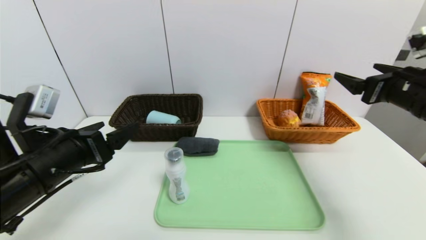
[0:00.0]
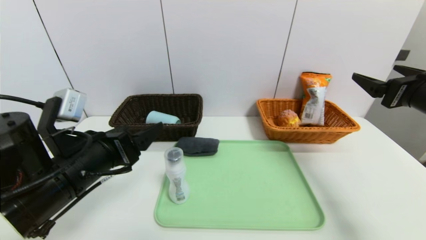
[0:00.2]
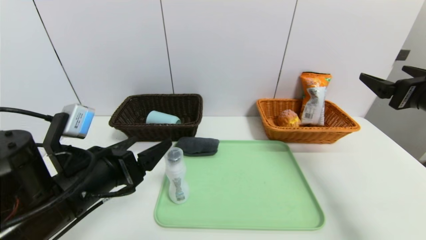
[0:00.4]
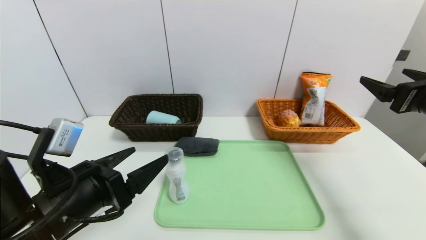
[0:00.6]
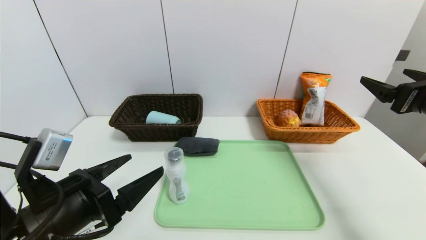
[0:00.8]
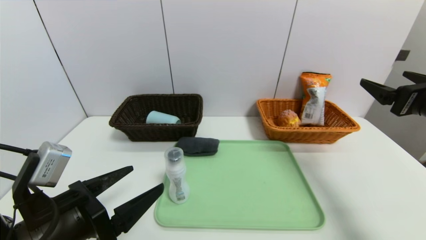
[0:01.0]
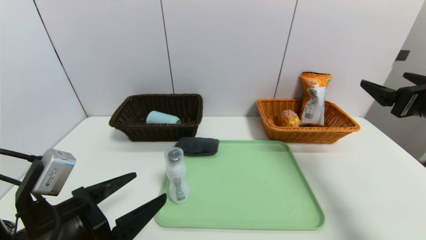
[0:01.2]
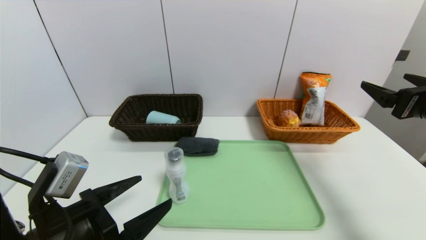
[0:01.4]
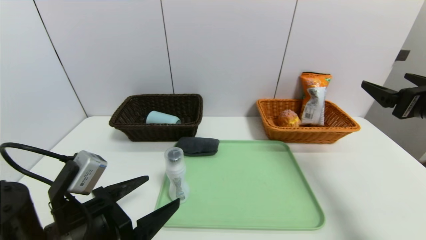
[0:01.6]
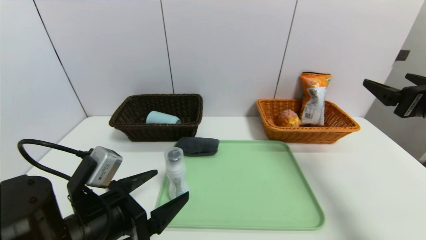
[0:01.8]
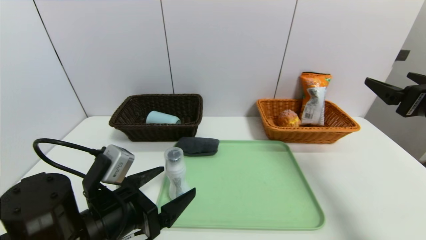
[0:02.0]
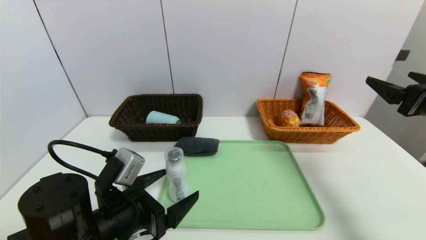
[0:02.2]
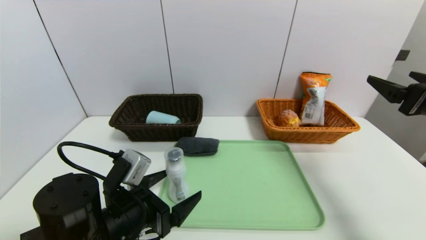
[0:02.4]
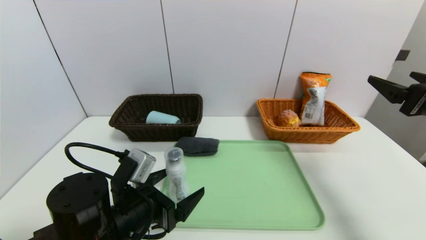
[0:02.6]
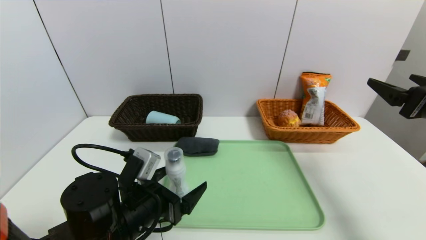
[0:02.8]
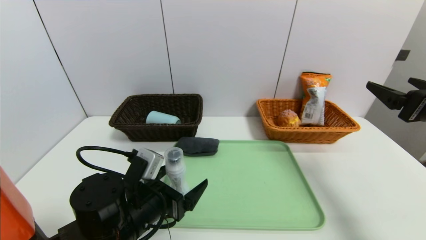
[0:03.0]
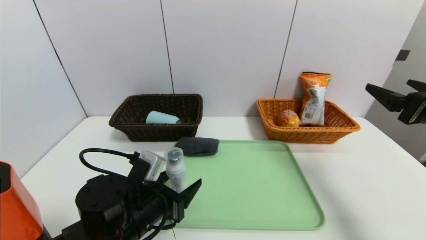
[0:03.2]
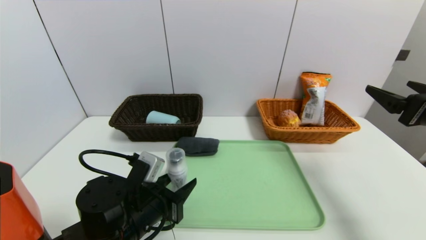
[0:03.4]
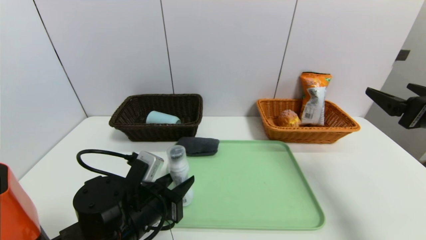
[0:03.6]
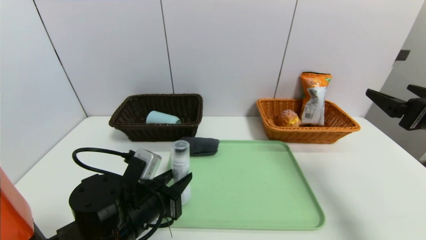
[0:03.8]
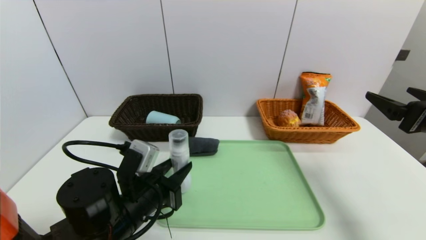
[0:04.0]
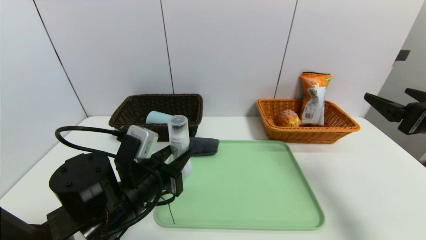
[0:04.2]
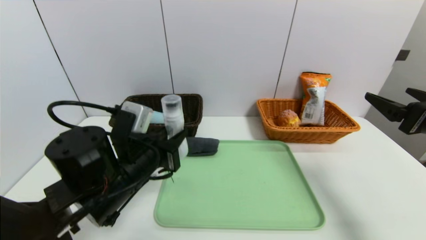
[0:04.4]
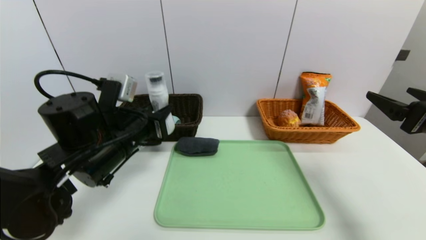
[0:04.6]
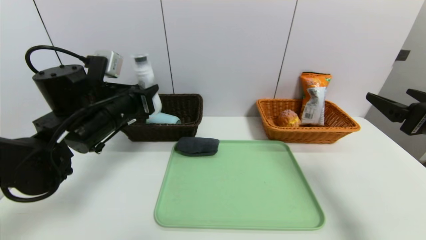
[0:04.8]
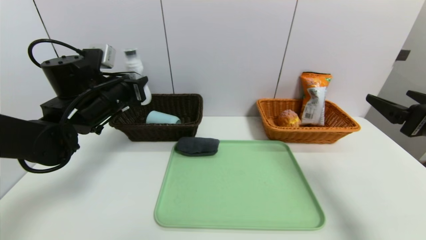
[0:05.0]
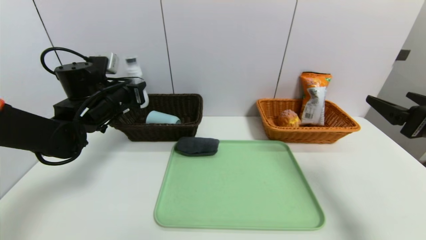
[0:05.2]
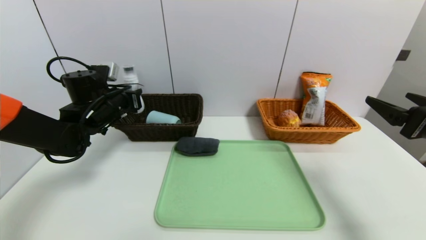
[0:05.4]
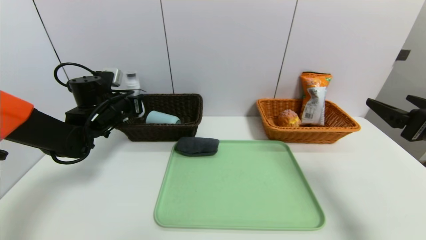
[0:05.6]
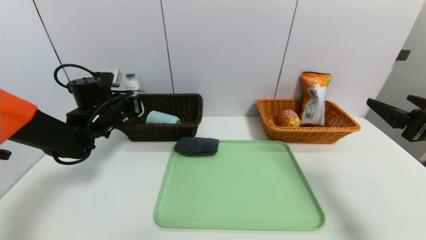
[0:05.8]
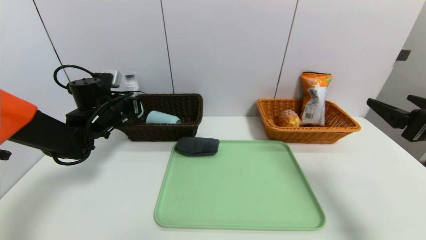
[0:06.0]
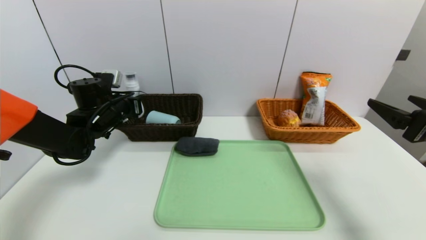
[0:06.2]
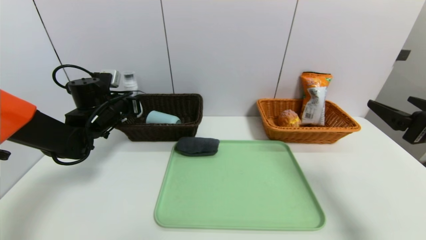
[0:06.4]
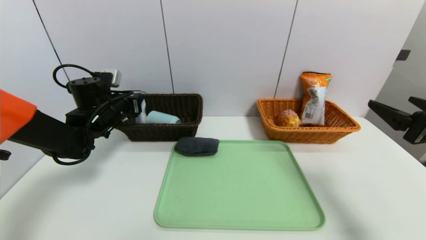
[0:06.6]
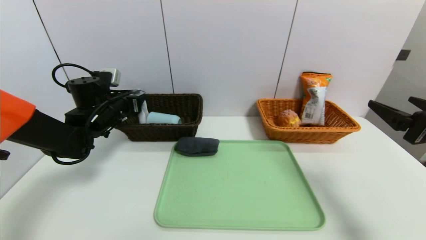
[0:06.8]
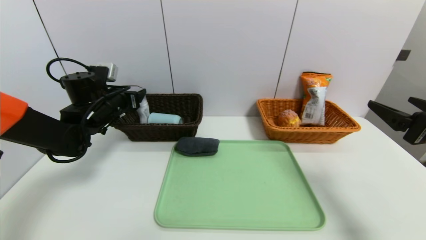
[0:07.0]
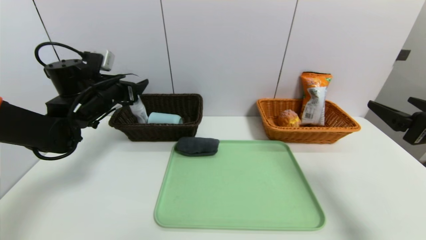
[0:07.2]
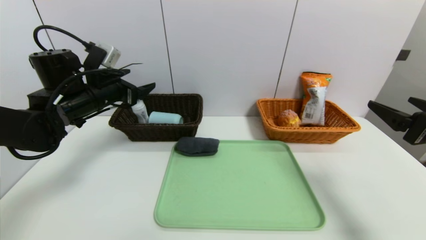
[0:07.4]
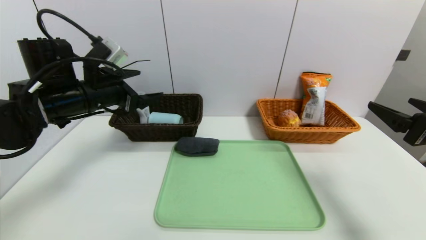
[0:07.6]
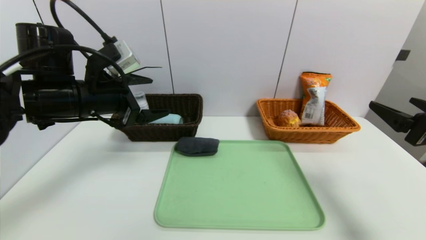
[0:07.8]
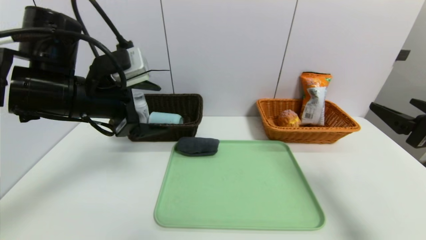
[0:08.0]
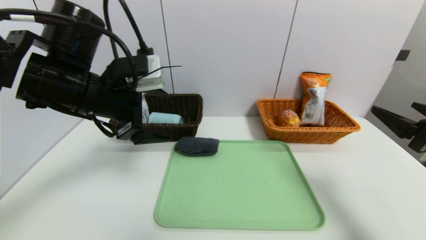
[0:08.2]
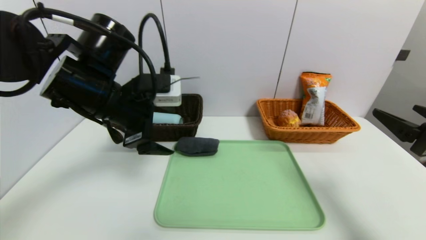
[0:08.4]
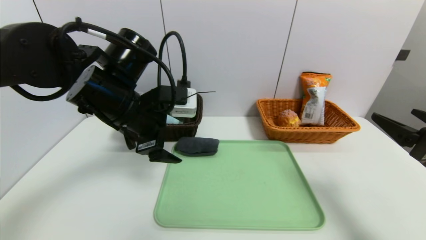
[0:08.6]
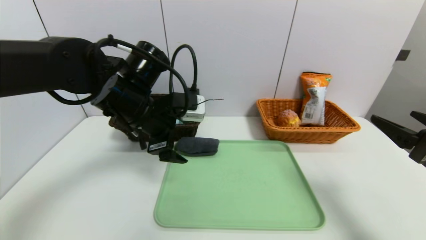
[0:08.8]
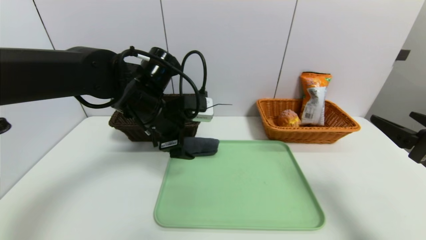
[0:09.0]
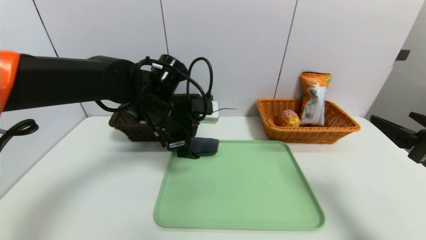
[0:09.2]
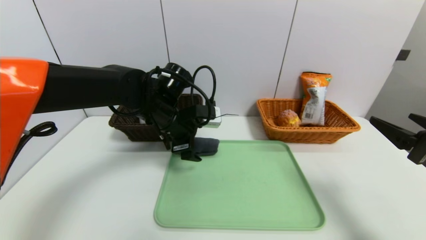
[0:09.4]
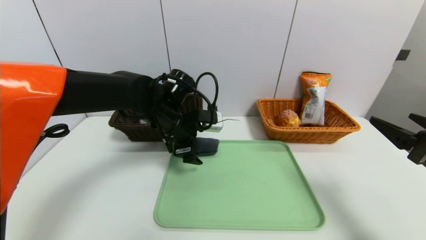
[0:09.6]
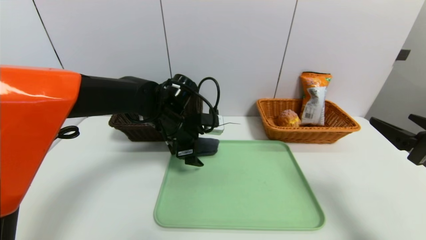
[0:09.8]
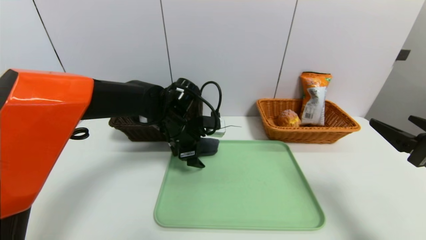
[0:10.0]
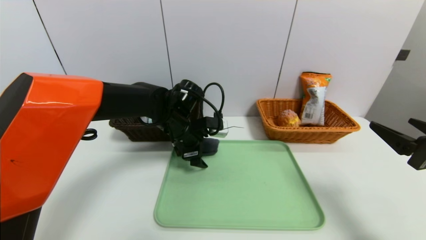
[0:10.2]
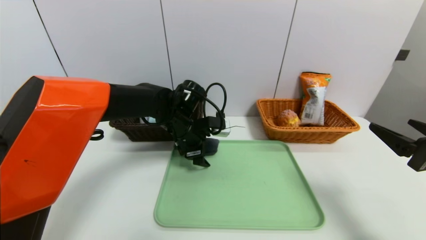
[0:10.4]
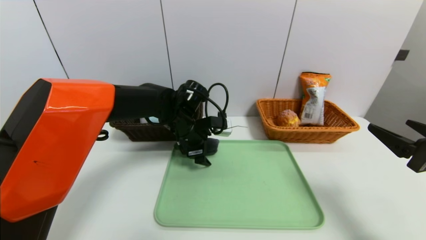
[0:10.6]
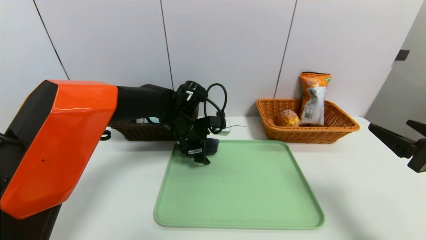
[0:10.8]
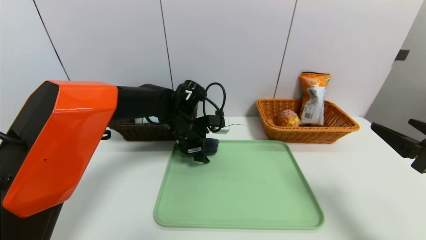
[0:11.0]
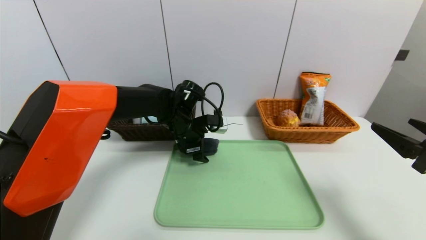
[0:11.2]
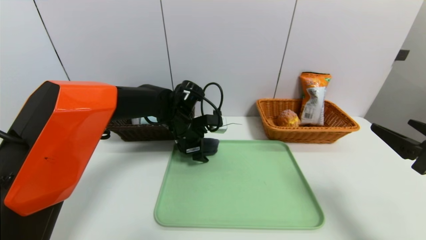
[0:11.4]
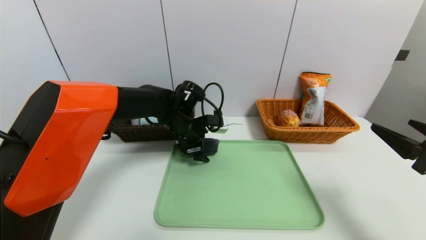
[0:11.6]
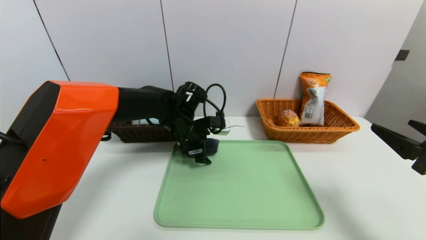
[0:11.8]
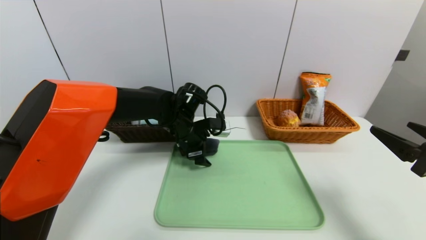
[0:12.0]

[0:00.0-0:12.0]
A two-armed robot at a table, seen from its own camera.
Task of the whole recording: place the food in the right basket with the right gripper, and place the non food items in the left basket with the left gripper.
Step, 0:00.0 to 0:07.2: Grasp the washing liquid and put it in the left basket.
0:00.0 to 0:01.6: The left gripper shifts some 10 cm downward and backward.
0:01.6 to 0:03.0: The left gripper heads forward, to the right and downward, covering approximately 10 cm.
0:03.0 to 0:04.4: The left gripper goes approximately 5 cm upward, and closes its fingers.
0:04.4 to 0:06.0: The left gripper heads forward and to the left, covering about 20 cm.
0:06.0 to 0:07.6: The left gripper goes about 10 cm upward and backward, and opens its fingers.
0:07.6 to 0:09.0: The left gripper moves to the right, roughly 10 cm.
0:09.0 to 0:10.4: The left gripper heads downward and forward, covering about 10 cm.
0:10.4 to 0:12.0: The grippers stay close to where they were, moving slightly.

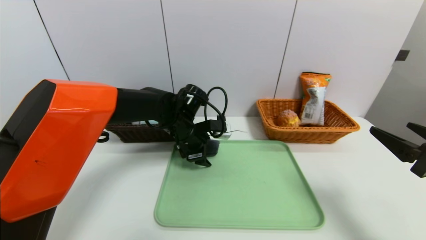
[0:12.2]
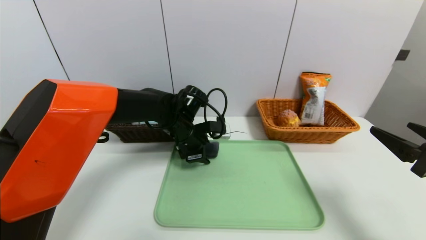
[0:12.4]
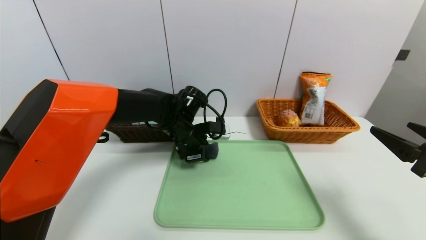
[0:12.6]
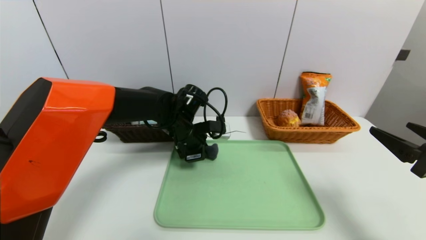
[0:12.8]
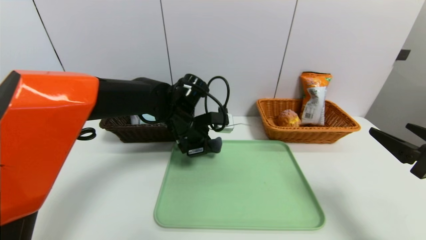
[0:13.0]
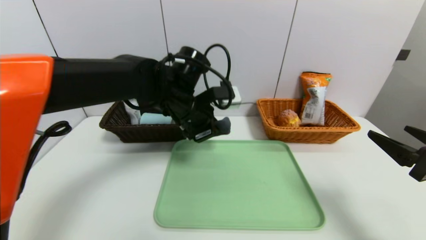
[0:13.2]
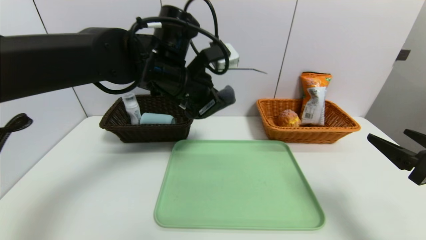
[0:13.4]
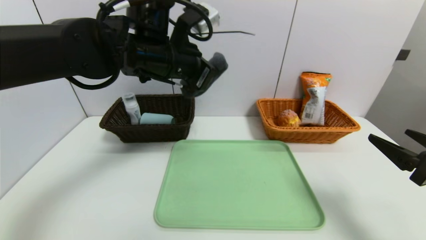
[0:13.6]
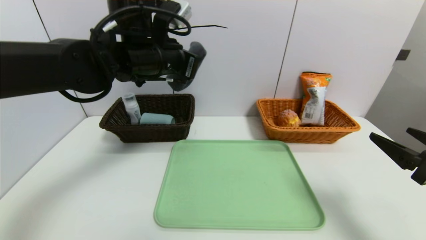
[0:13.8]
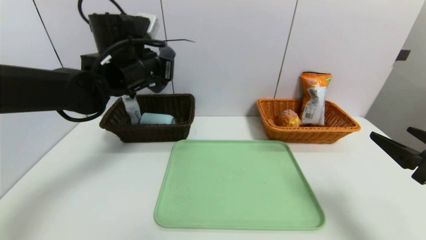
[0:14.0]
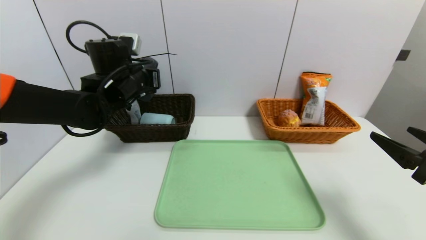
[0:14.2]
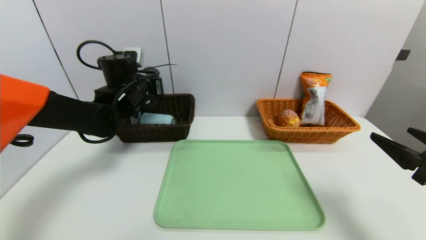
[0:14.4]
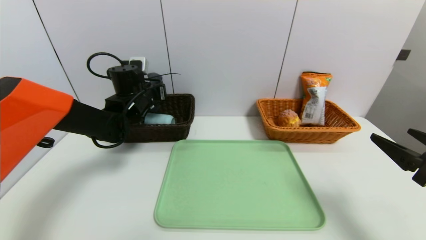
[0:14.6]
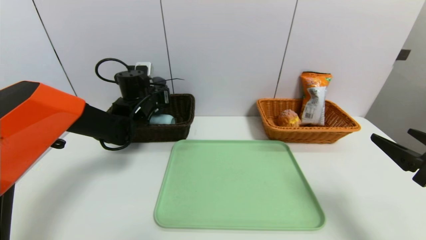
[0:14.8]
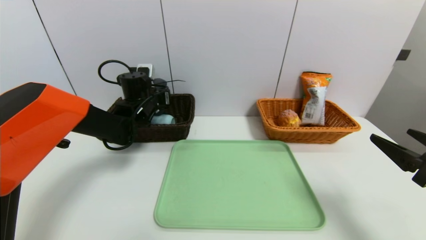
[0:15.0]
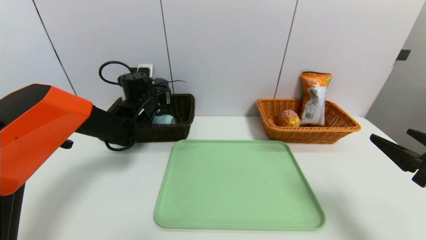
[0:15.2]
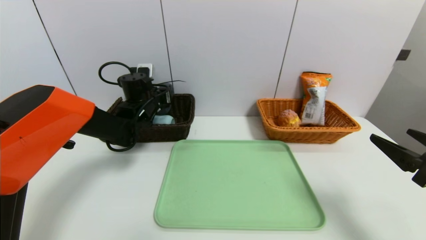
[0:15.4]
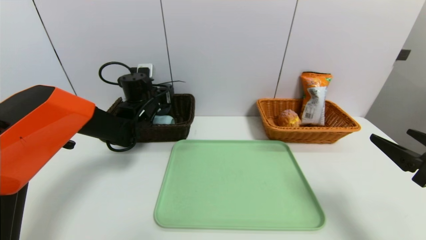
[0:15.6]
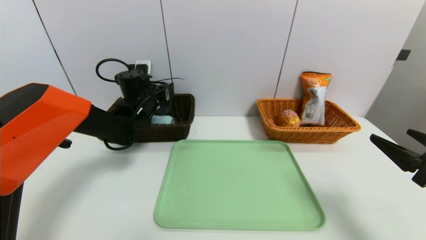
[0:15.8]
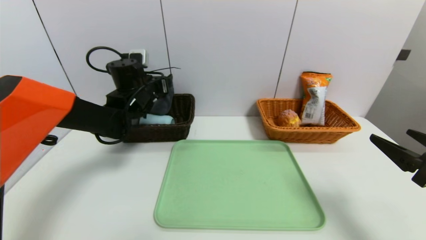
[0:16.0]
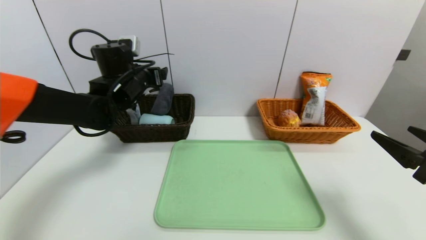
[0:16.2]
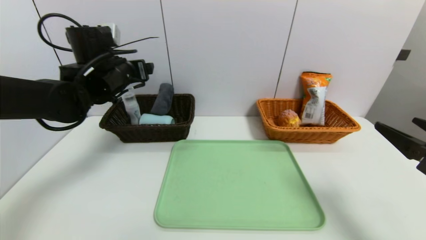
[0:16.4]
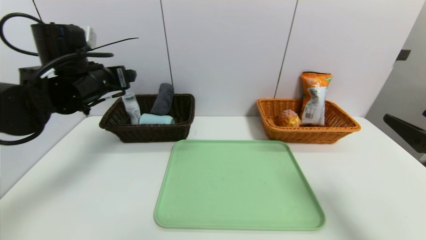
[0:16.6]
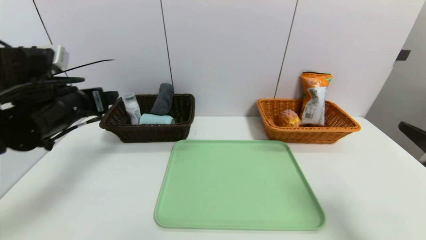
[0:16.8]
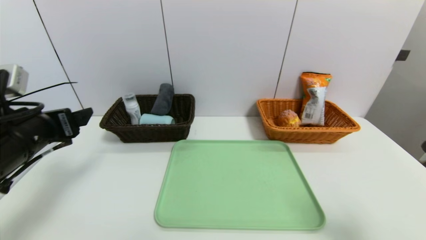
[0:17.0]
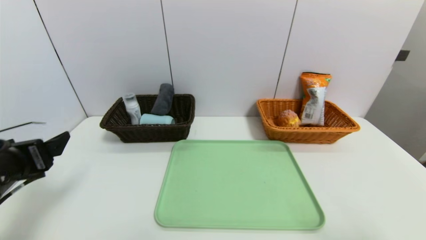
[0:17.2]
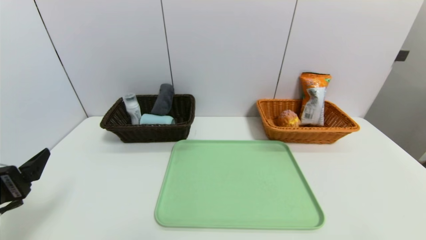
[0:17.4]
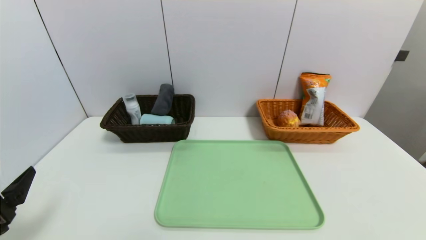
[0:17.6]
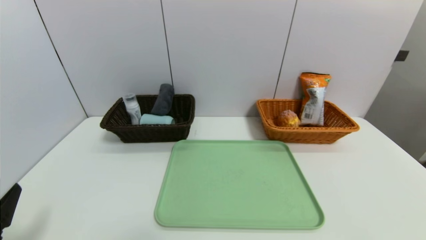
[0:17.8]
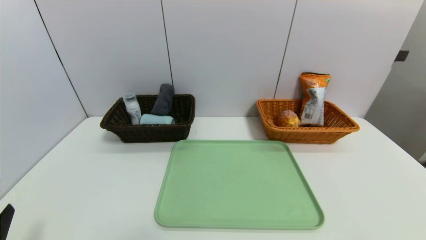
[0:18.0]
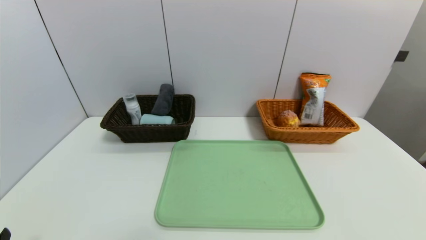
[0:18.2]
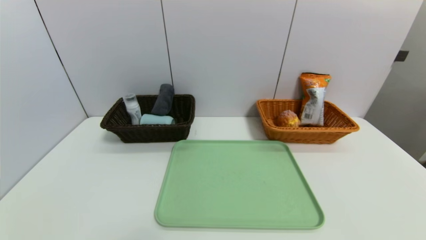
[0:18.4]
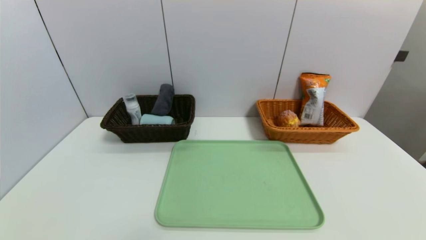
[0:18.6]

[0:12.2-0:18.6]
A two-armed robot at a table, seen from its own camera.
Task of the whole recording: place the food in the right basket with the right gripper, and place the non food items in the left basket with the left gripper.
Step, 0:12.2 to 0:16.0: Grasp the grey towel and put it in the left basket.
0:12.2 to 0:13.8: The left gripper shifts some 15 cm upward, and closes.
0:13.8 to 0:15.4: The left gripper travels downward, forward and to the left by approximately 20 cm, and opens.
0:15.4 to 0:17.0: The right gripper is displaced backward by roughly 5 cm; the left gripper goes about 25 cm backward, and opens its fingers.
0:17.0 to 0:18.6: The left gripper travels backward and downward by about 25 cm. Meanwhile the right gripper is displaced backward and downward by roughly 15 cm.
